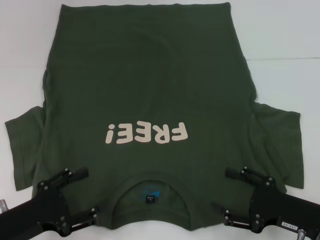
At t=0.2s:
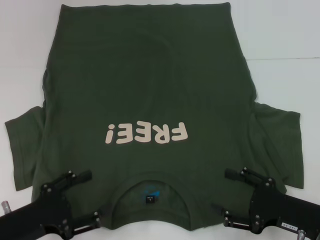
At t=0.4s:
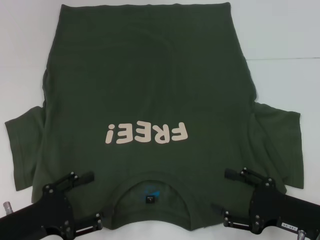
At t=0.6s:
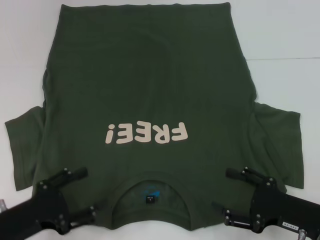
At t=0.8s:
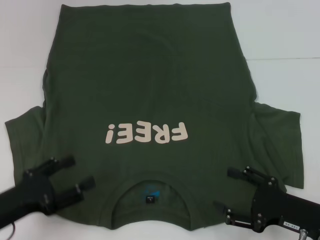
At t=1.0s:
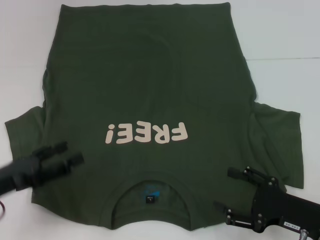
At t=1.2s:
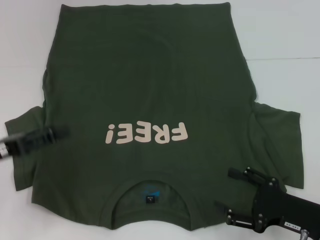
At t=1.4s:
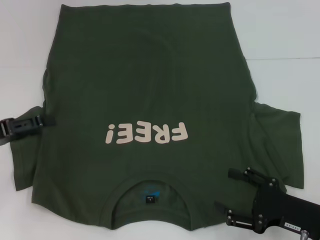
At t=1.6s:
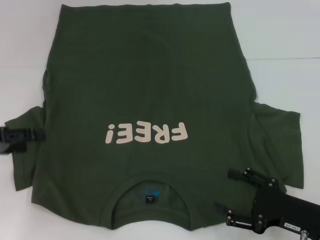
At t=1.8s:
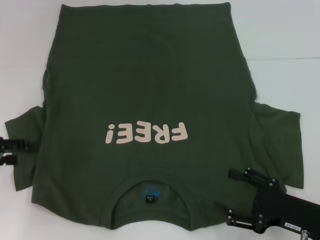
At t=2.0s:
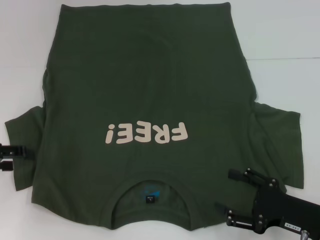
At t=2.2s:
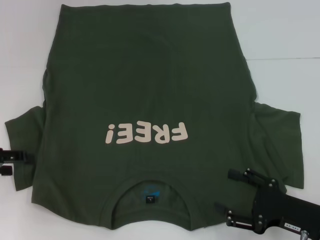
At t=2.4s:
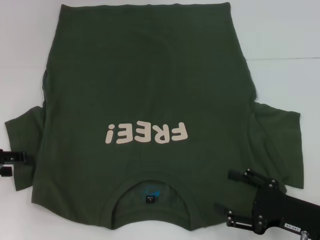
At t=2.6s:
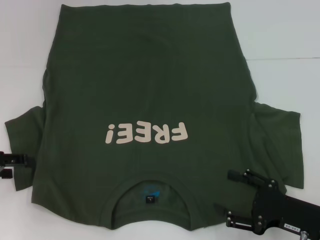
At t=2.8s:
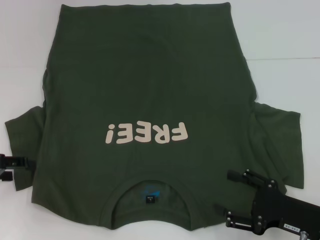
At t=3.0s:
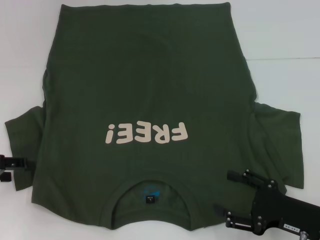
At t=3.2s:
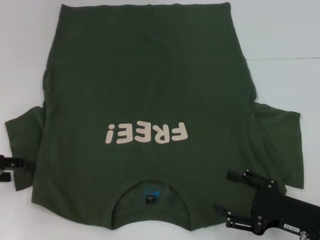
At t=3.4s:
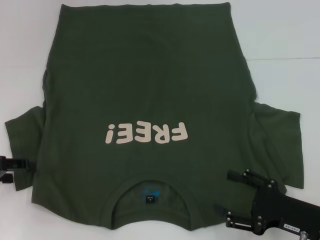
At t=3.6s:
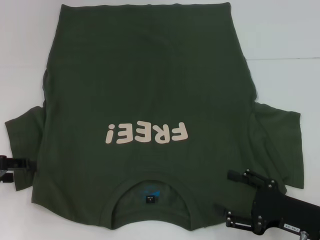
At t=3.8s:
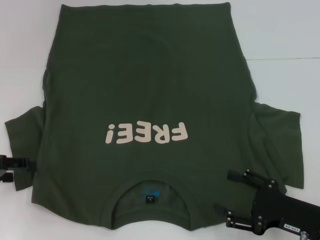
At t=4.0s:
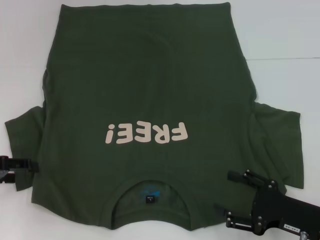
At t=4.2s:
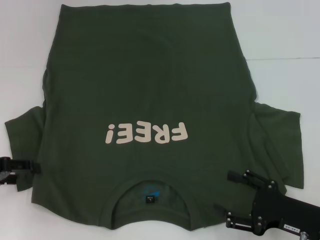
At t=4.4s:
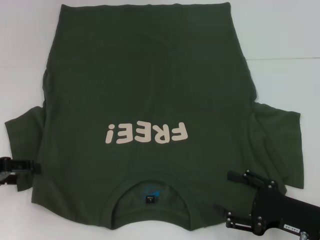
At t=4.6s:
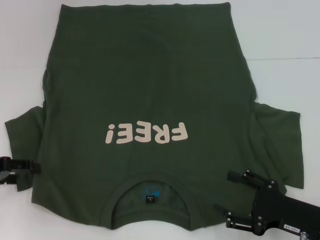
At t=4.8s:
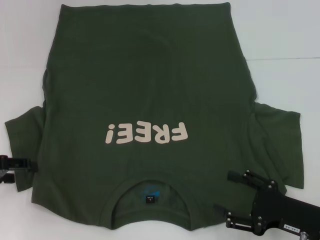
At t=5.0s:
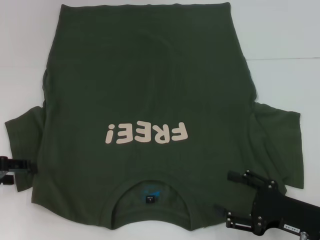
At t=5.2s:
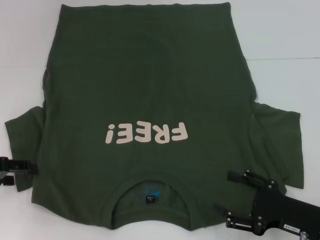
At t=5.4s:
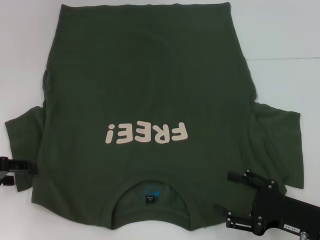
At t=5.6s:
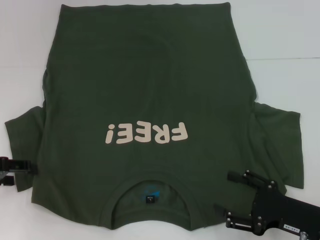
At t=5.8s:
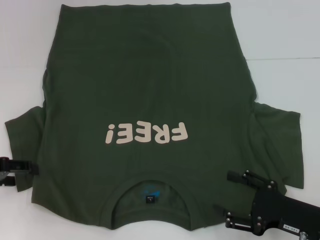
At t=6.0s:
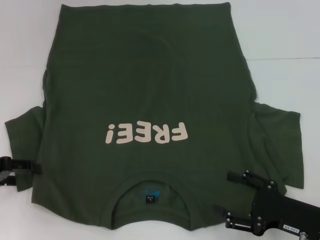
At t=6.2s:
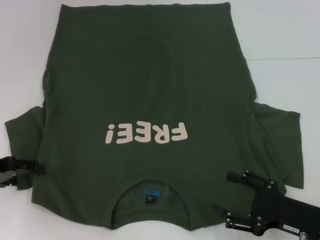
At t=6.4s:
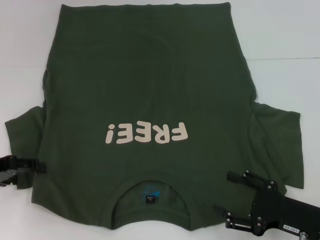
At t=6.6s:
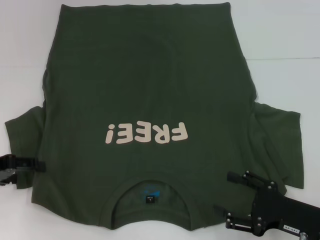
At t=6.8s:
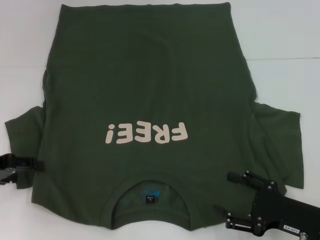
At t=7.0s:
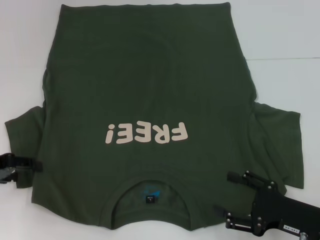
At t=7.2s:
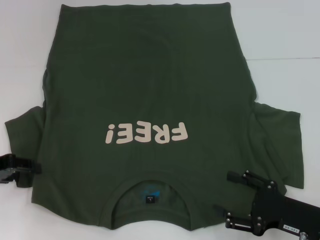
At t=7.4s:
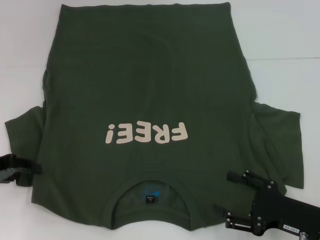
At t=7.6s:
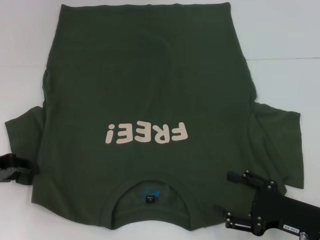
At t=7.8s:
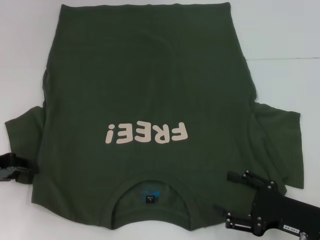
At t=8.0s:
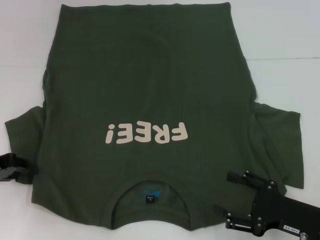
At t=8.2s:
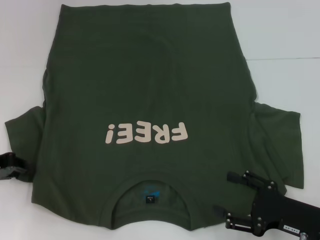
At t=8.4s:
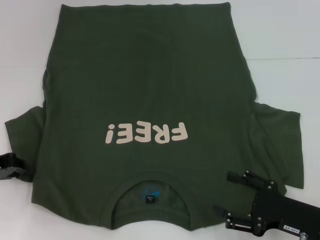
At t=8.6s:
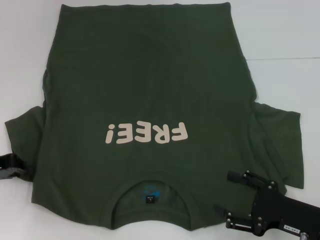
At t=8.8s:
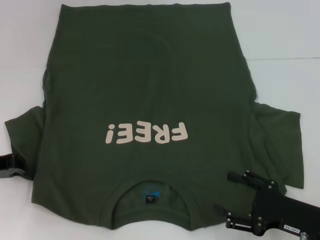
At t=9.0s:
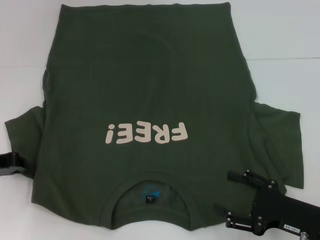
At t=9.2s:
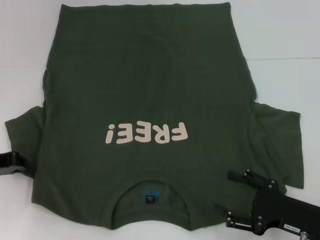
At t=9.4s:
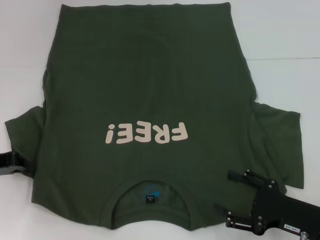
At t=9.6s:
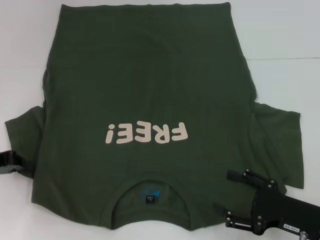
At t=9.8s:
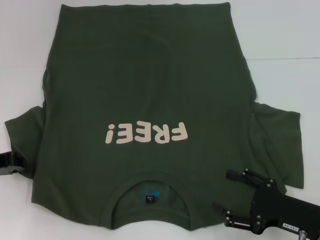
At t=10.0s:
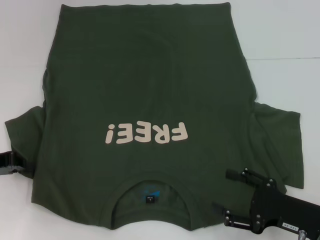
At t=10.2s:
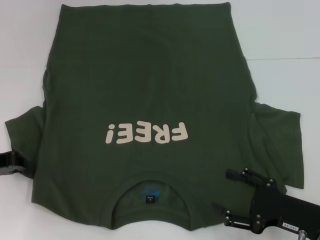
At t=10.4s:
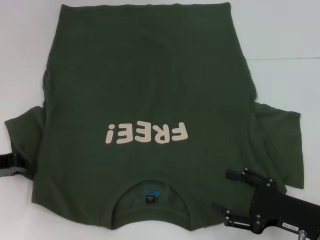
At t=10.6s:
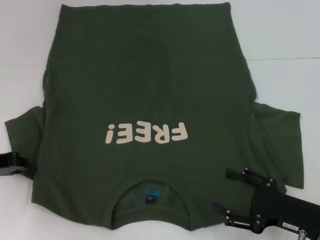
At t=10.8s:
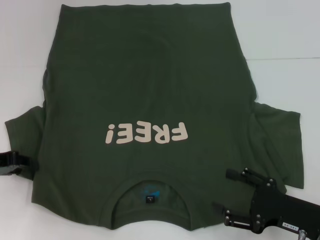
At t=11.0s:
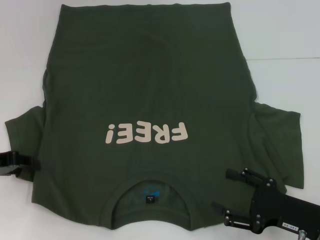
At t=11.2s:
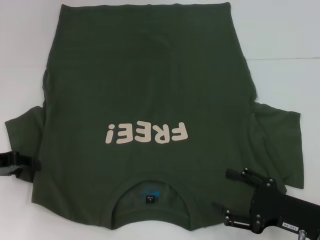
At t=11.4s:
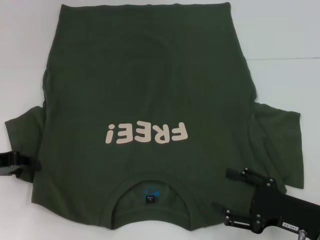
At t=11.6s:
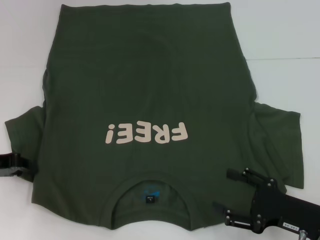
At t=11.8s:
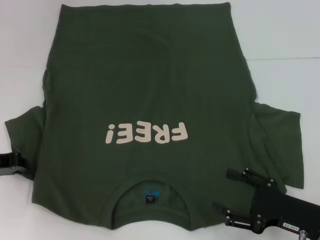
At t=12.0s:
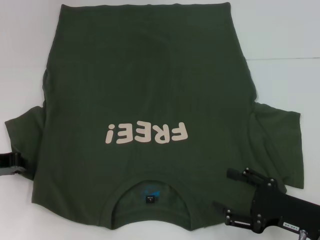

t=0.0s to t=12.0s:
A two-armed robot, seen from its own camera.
t=0.0s to t=1.6s: The left gripper travels forward, upward and to the left by roughly 15 cm.
t=1.6s to t=3.0s: The grippers stay close to where they were, moving slightly.
t=3.0s to t=6.0s: The two grippers keep their place.
t=9.0s to t=10.4s: Both grippers stay put.

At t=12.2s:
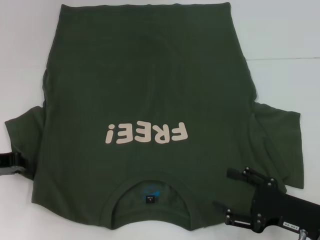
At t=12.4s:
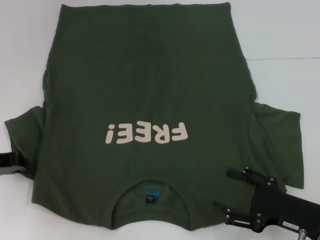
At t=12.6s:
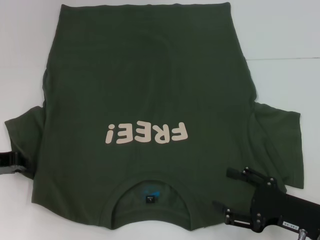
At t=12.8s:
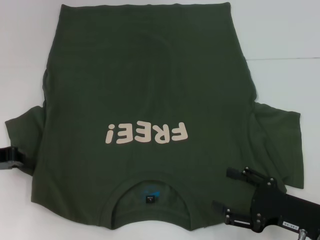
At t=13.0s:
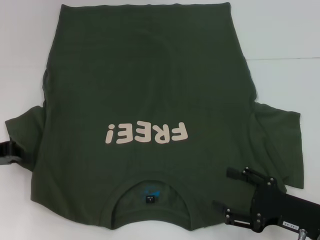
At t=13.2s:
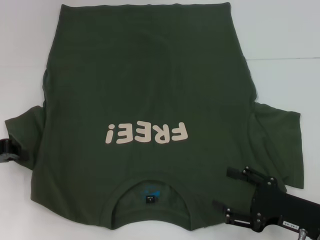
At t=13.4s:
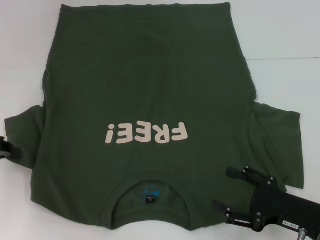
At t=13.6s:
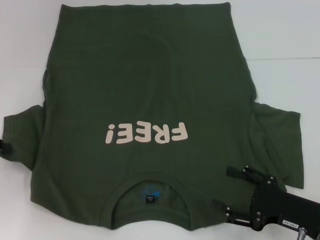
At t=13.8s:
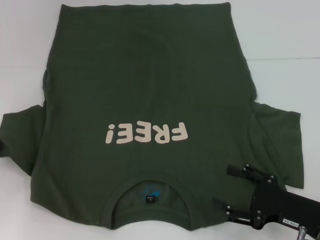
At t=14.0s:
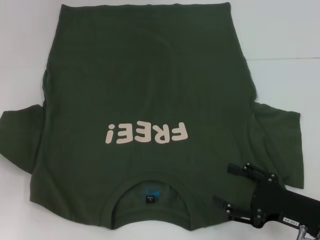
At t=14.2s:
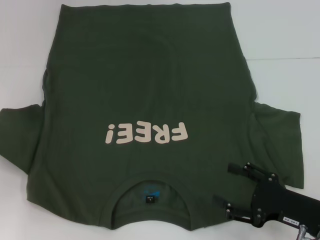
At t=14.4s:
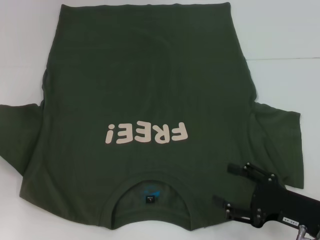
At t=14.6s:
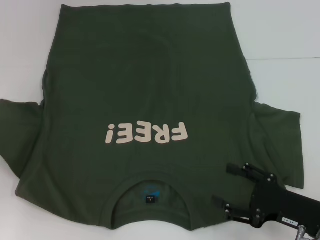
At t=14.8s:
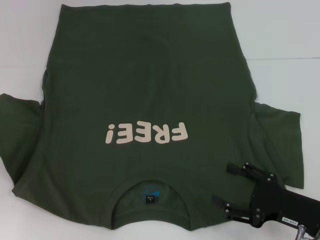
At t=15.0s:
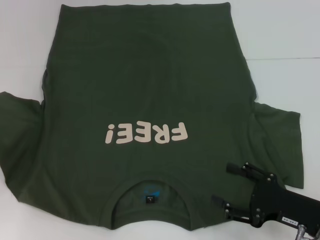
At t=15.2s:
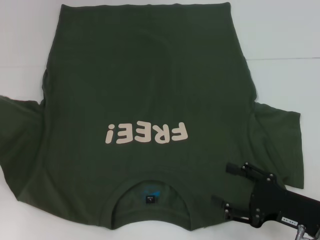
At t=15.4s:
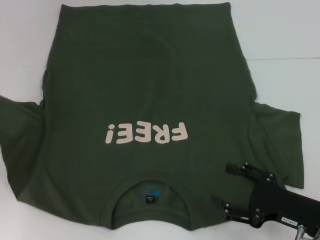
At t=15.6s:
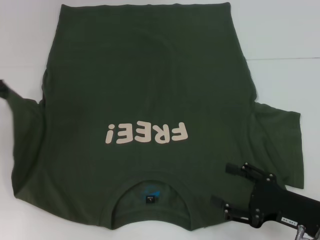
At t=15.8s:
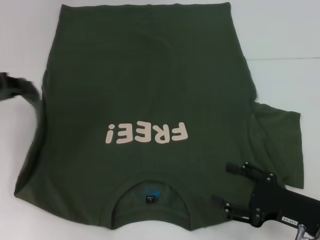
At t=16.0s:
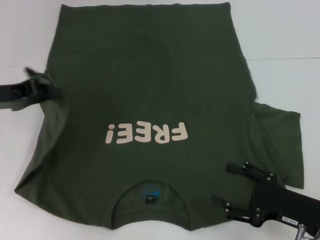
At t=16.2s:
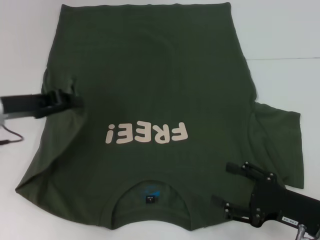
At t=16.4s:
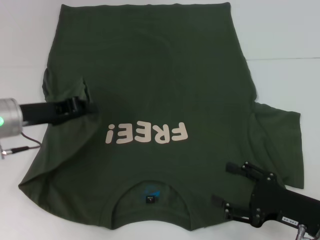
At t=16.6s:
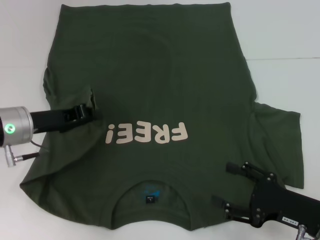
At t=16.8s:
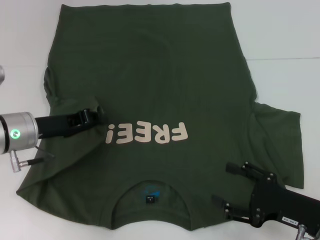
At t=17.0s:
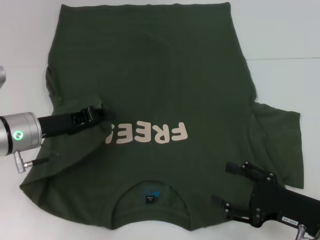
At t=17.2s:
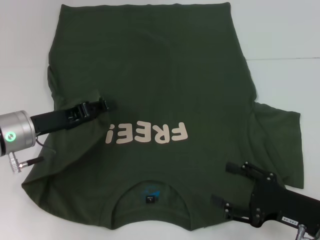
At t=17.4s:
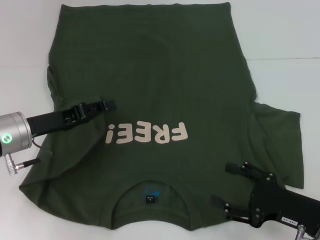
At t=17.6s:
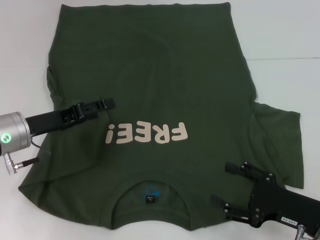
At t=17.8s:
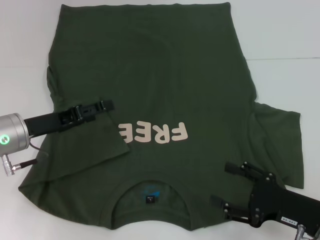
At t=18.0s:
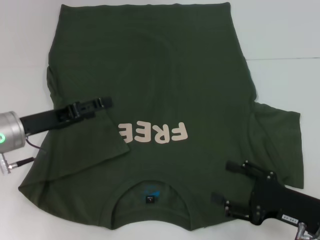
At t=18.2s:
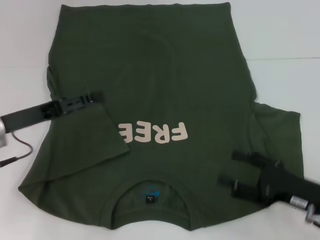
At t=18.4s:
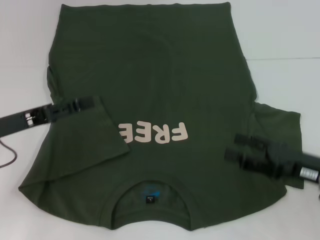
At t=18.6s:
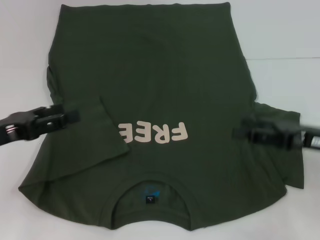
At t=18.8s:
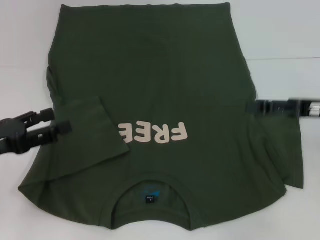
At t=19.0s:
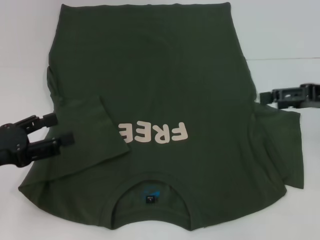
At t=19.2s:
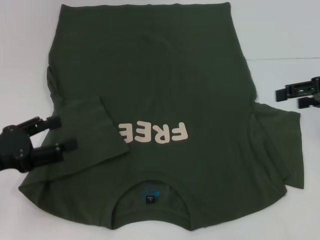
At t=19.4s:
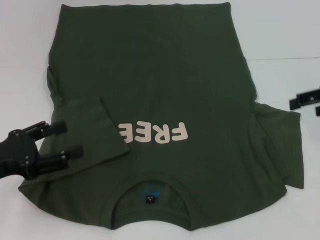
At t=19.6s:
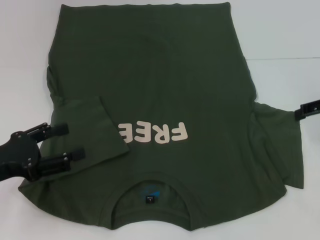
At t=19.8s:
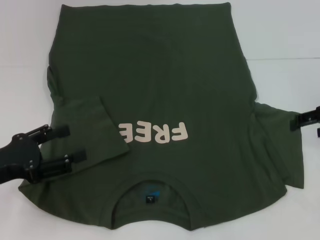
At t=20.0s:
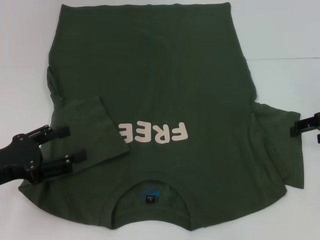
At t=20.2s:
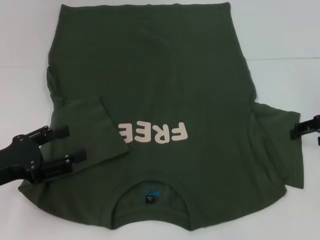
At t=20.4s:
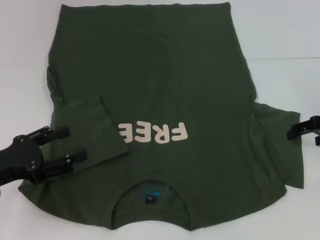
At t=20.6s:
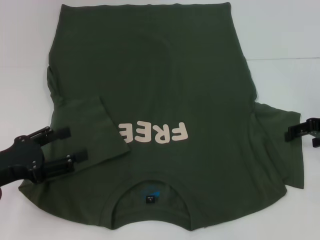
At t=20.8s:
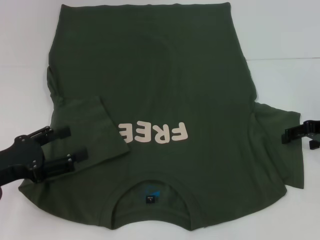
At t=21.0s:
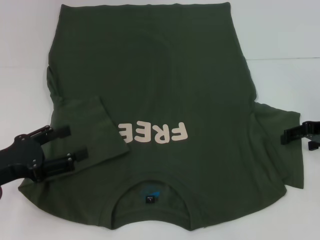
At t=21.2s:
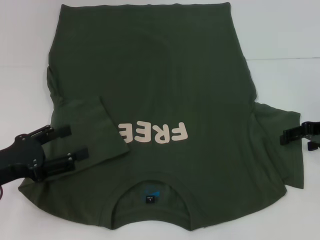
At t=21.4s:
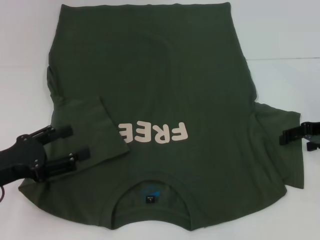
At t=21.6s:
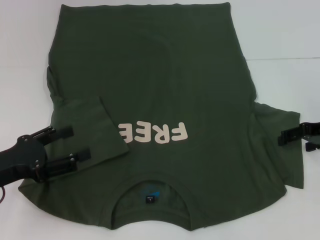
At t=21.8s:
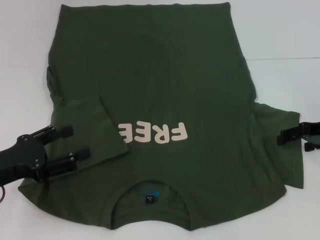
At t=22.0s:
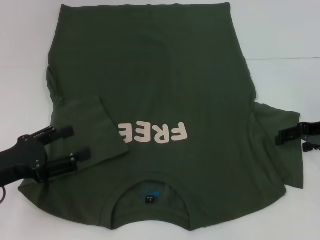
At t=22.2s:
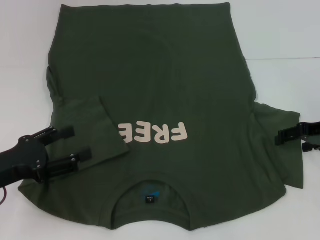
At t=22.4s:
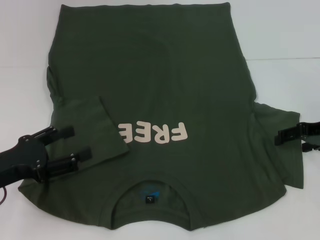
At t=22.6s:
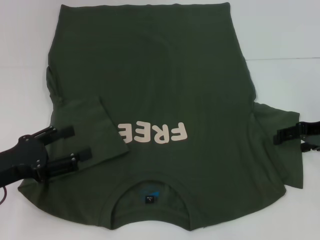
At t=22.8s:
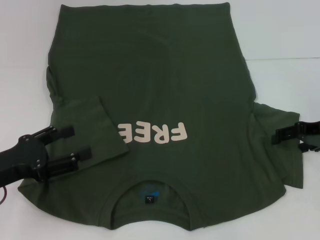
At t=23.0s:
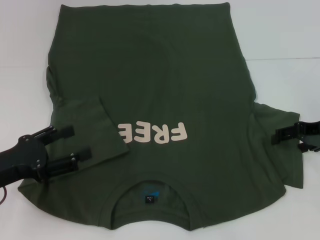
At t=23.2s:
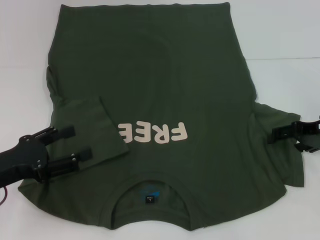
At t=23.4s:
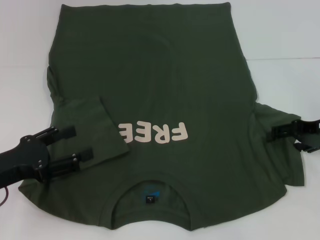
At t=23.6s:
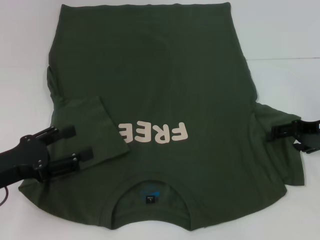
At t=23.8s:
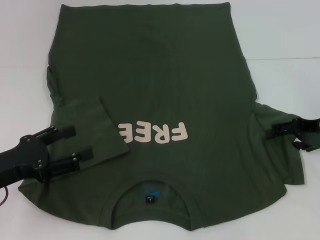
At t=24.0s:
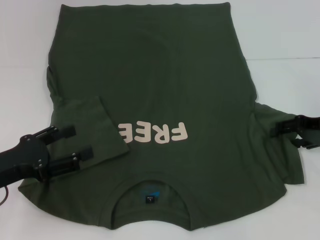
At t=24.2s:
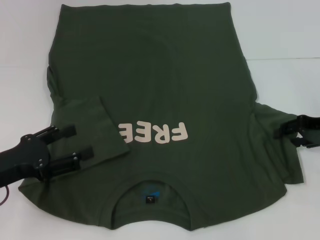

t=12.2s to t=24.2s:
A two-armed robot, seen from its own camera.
Step, t=12.2s to t=18.0s: Fold the bottom left sleeve with your left hand.
t=12.2s to t=13.8s: The left gripper ends up approximately 5 cm from where it was.
t=13.8s to t=15.2s: The left gripper shifts by roughly 5 cm.
t=15.2s to t=16.6s: The left gripper travels to the right and downward by roughly 20 cm.
t=16.6s to t=18.2s: The left gripper opens up.
t=18.2s to t=19.8s: The right gripper travels forward, upward and to the right by about 20 cm, while the left gripper heads backward, covering approximately 10 cm.
t=19.8s to t=21.2s: There are only small adjustments of the grippers.
t=21.2s to t=22.6s: Both grippers stay about where they are.
t=22.6s to t=24.2s: There are only small adjustments of the grippers.
